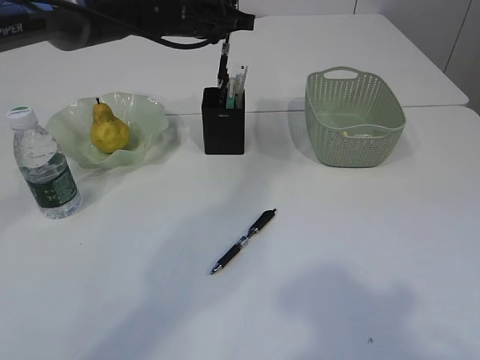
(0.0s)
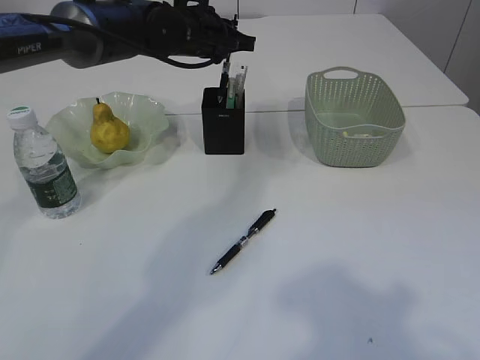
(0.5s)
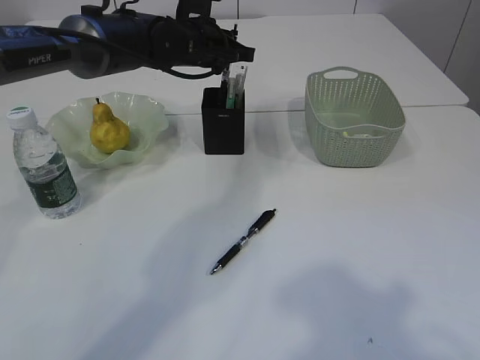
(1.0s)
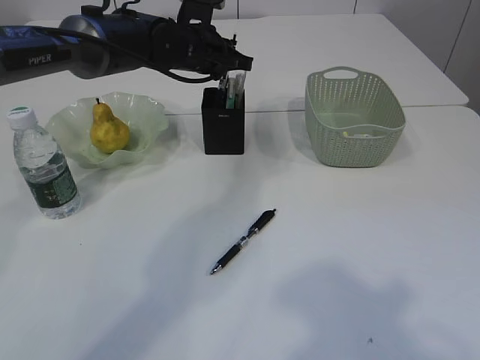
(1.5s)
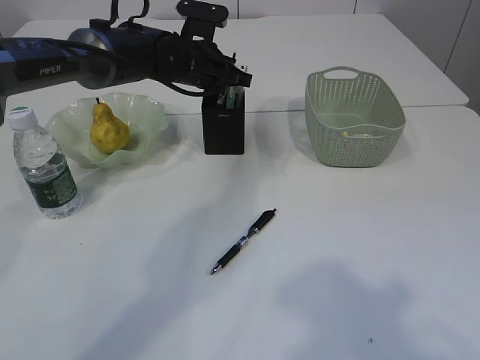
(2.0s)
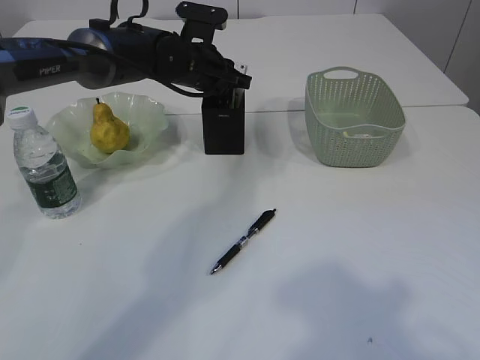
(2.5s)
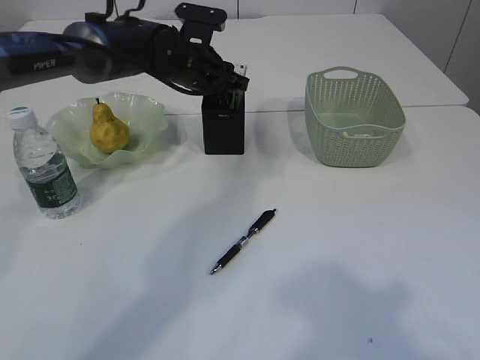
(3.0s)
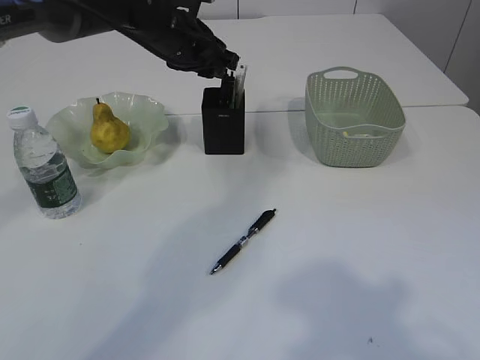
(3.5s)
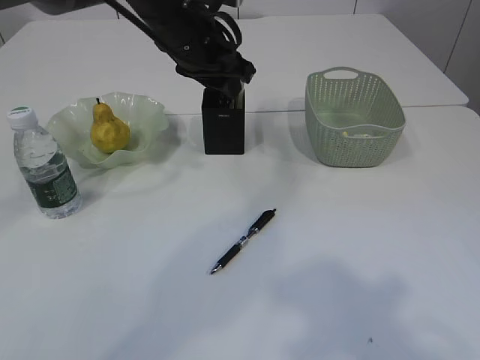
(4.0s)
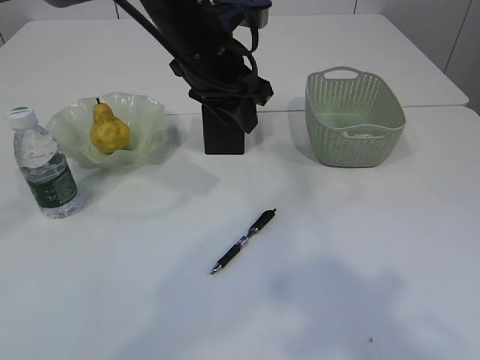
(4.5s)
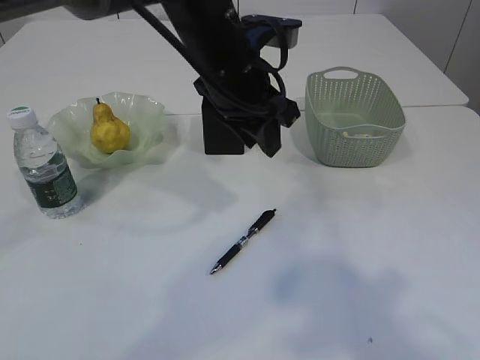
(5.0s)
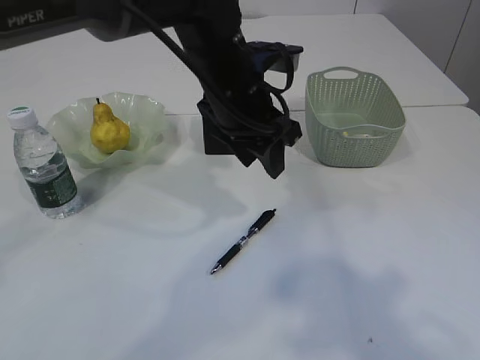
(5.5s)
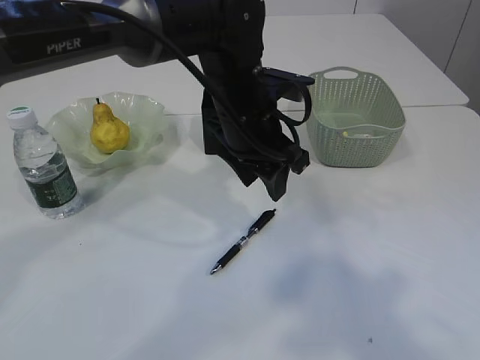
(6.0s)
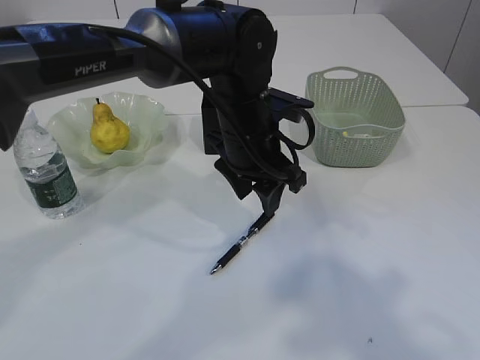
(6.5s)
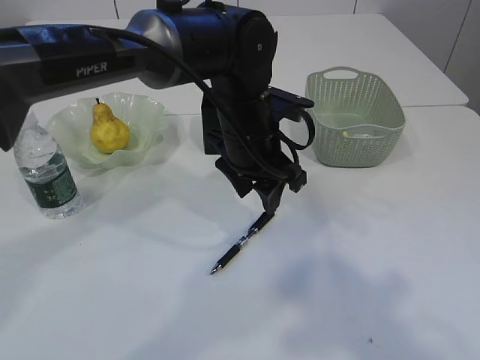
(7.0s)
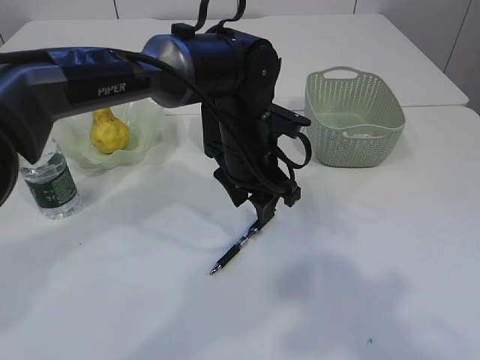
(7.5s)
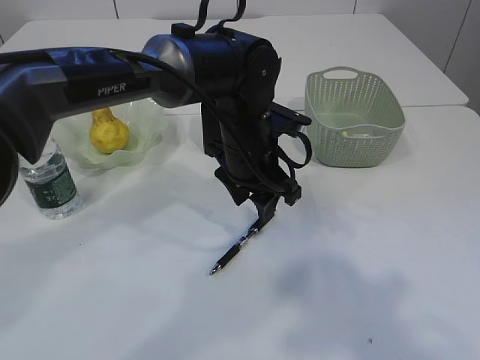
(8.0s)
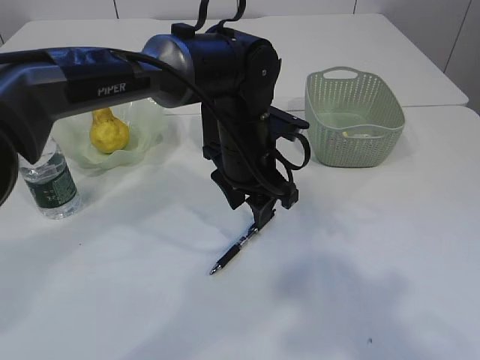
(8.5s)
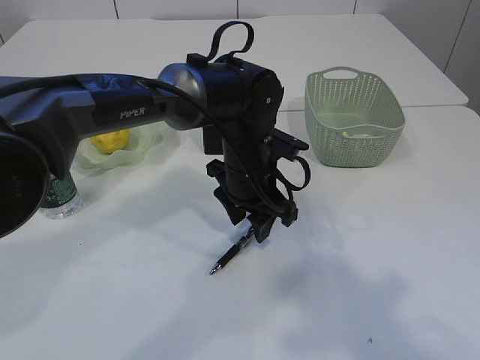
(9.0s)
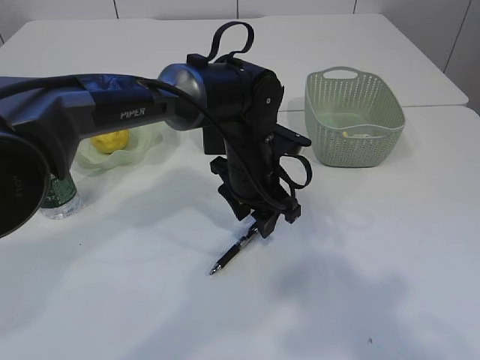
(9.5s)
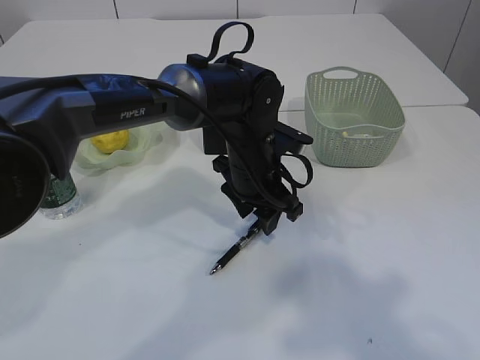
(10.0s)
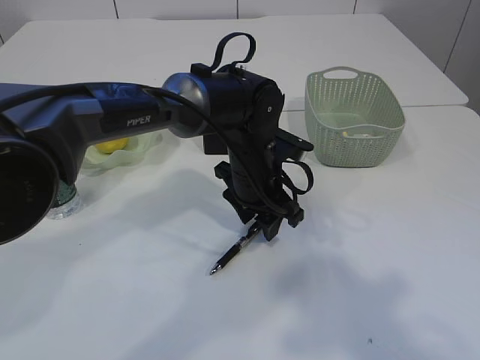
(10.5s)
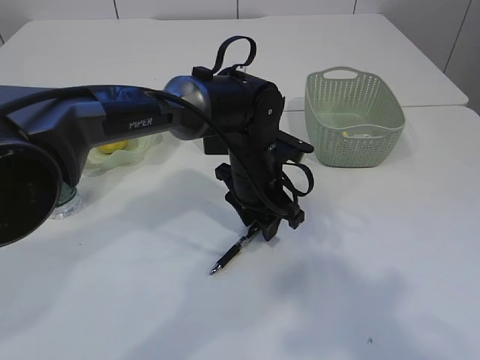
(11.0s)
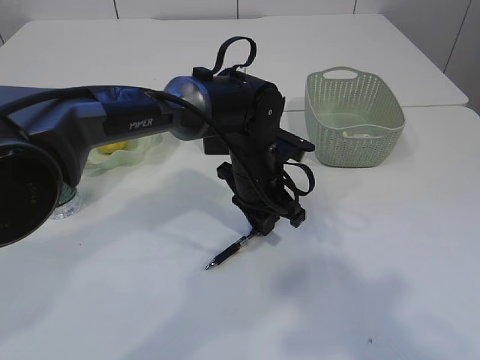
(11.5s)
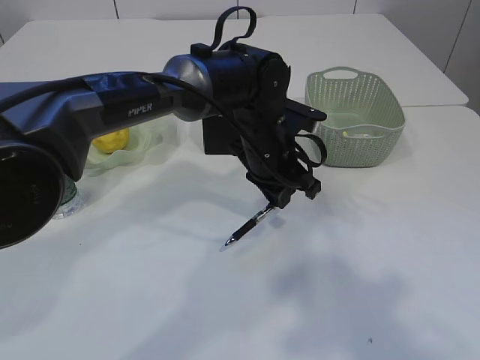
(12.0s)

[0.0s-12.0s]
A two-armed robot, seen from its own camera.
Step, 0.0s to 4.0s: Place the pen into the pen holder.
0.0s to 2.0s: The left gripper is displaced downward by some 5 cm.
2.0s to 4.0s: The left gripper travels backward and upward by roughly 10 cm, and opens its fingers.
4.0s to 6.0s: The left gripper moves backward, to the right and downward, some 10 cm.
6.0s to 8.0s: The left gripper goes some 5 cm downward.
8.0s to 10.0s: The grippers stay close to where they were, moving slightly.
10.0s to 12.0s: The left gripper closes up.

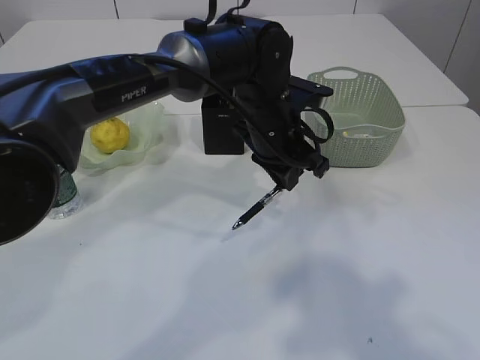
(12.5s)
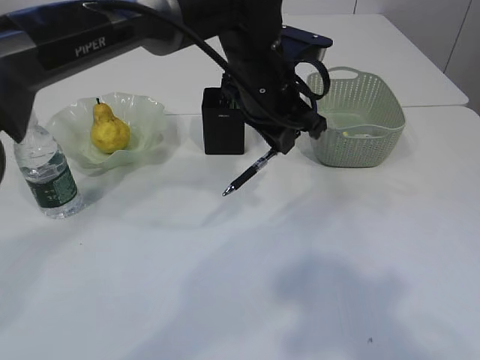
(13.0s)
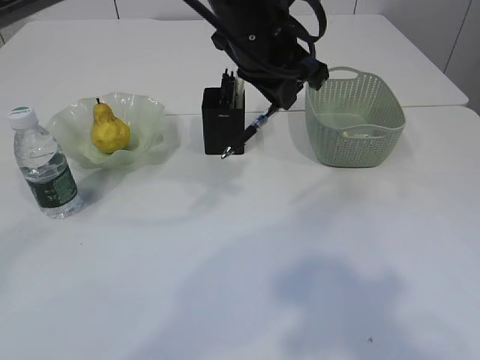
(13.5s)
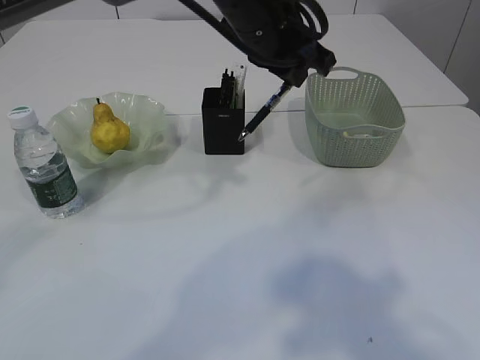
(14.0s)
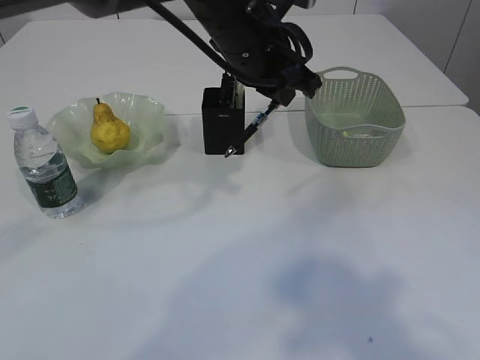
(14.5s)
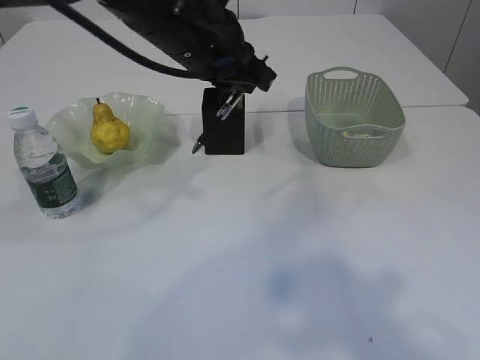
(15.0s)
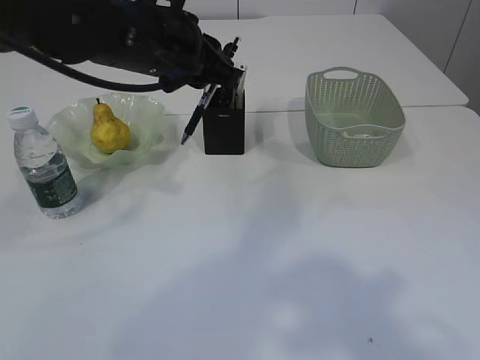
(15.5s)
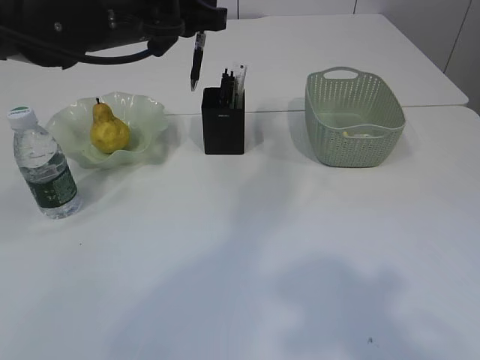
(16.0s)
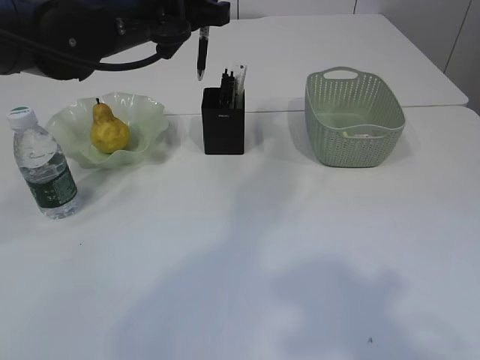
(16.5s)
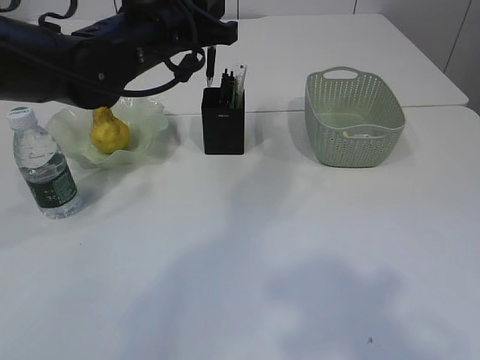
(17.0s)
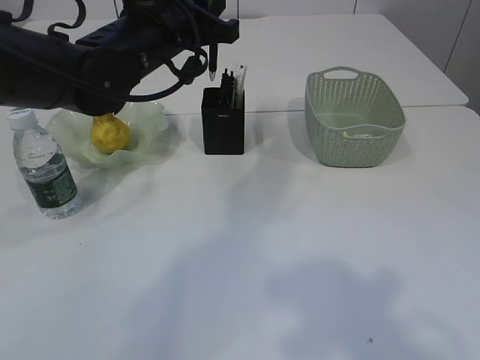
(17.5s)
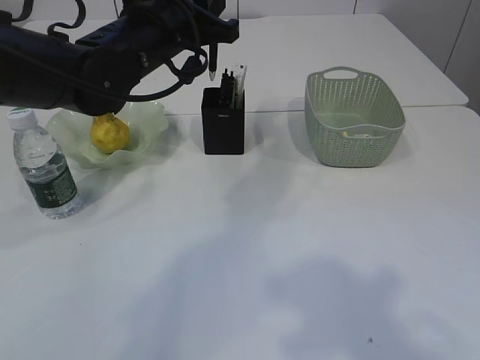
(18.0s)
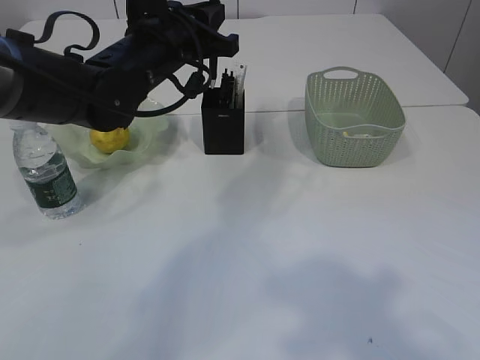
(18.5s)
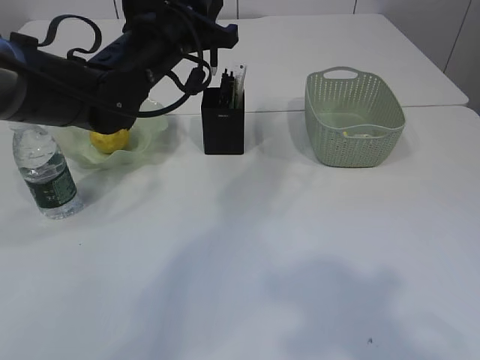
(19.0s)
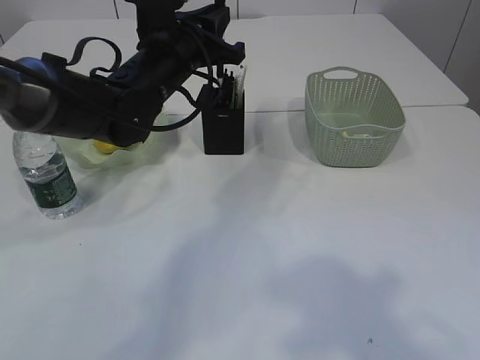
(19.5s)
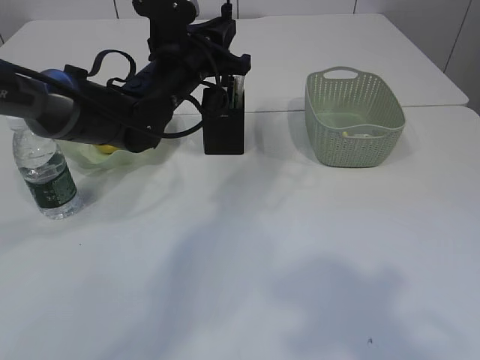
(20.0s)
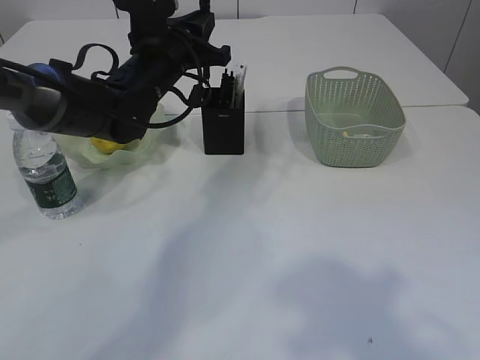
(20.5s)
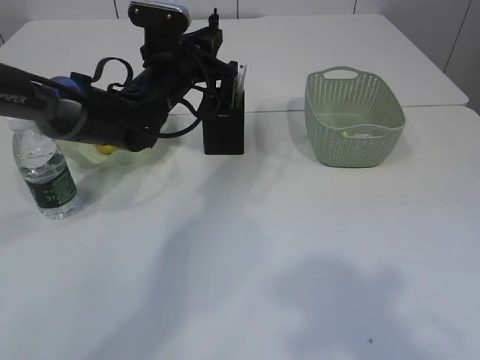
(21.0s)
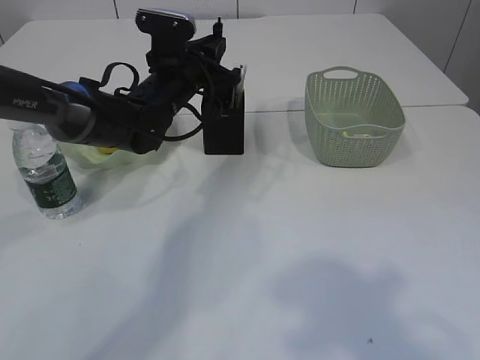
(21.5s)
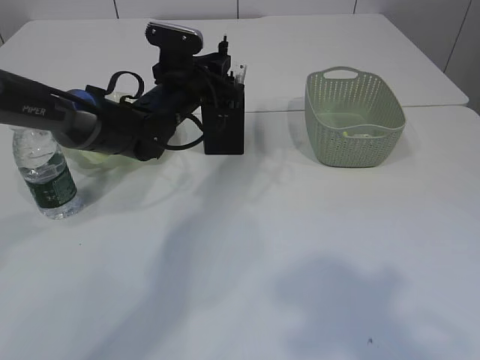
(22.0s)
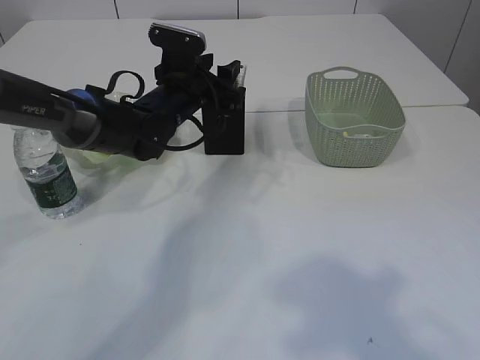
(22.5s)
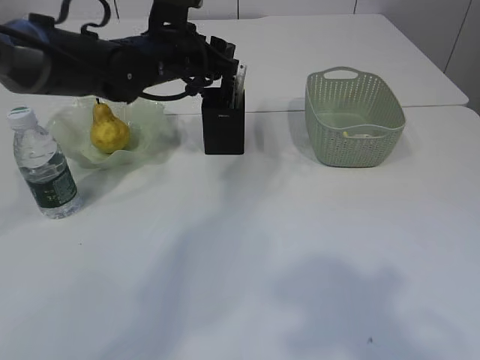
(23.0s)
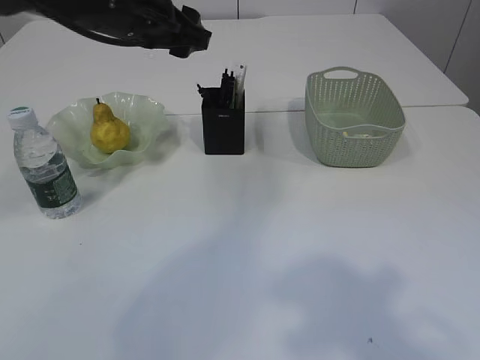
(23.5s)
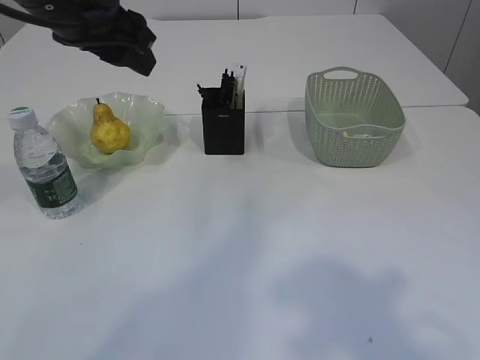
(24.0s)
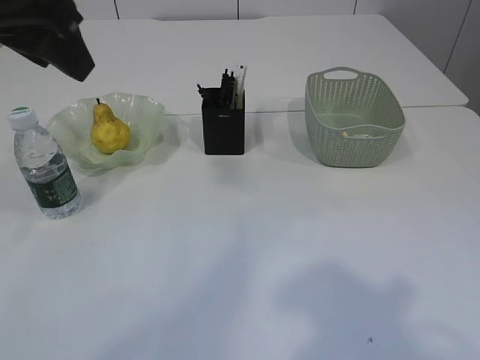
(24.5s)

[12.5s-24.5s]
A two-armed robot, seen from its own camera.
Step, 13.0s to 23.0s: Place the pen into the pen holder.
12.5s to 14.5s: The left gripper goes roughly 10 cm upward.
14.5s to 16.5s: The left gripper heads to the left, covering about 10 cm.
16.5s to 18.5s: The left gripper is displaced downward by some 5 cm.
18.5s to 20.5s: The left gripper changes place by some 5 cm.
20.5s to 22.5s: The left gripper travels downward by approximately 5 cm, and opens.
22.5s to 24.5s: The left gripper is displaced upward, backward and to the left by roughly 30 cm.

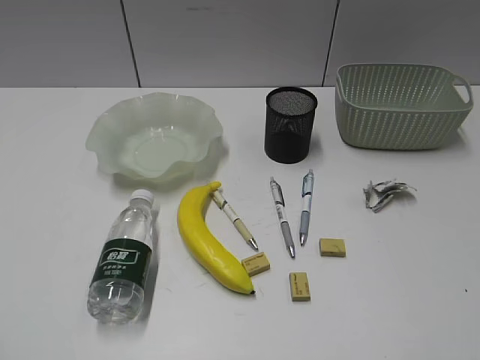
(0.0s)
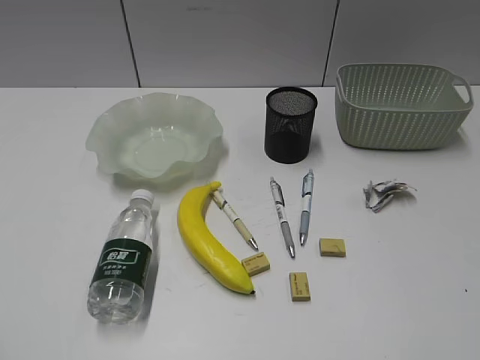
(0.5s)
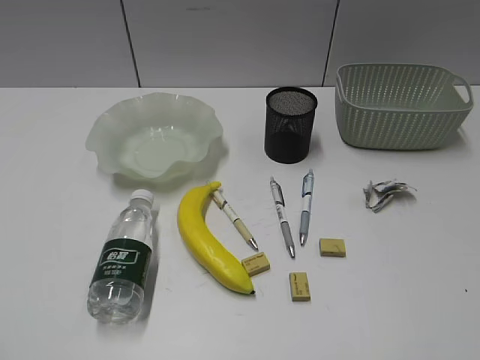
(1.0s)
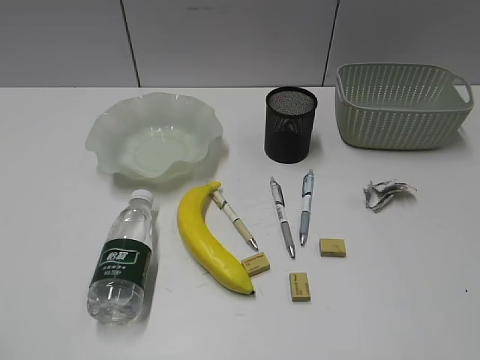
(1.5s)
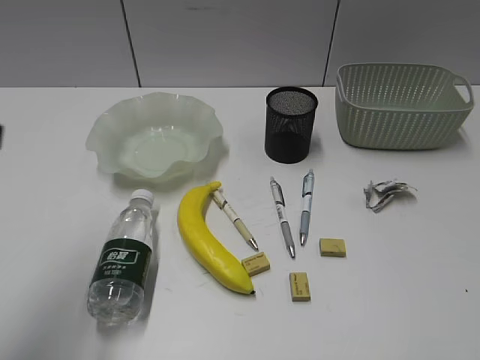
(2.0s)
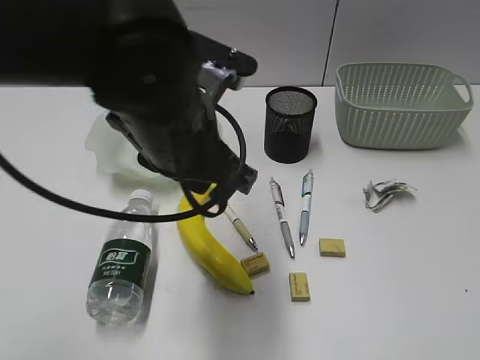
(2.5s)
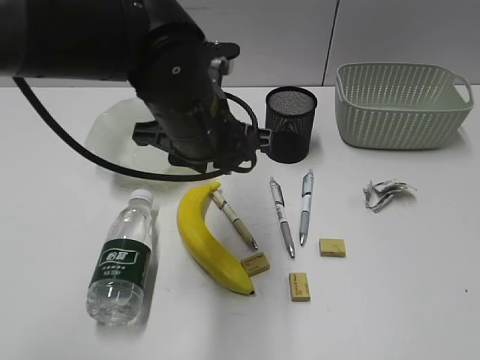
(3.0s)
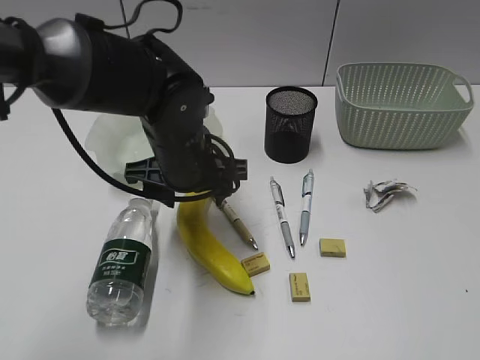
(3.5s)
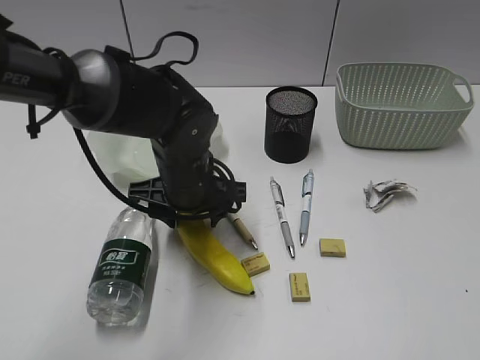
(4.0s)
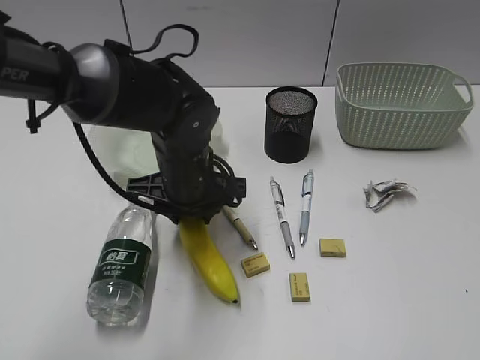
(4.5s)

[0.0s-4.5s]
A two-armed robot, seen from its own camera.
Step, 1.5s to 4.0s: Grasp the banana with left gripper.
2.0s to 4.5s: The left gripper moves to the right, downward and forward, roughly 30 cm, and opens, then closes again.
